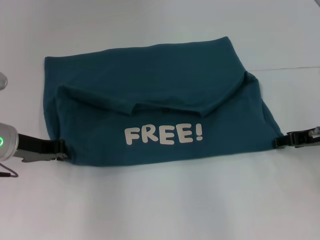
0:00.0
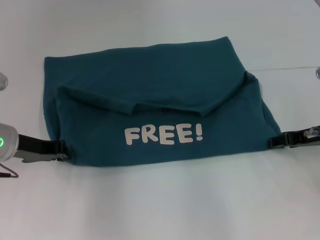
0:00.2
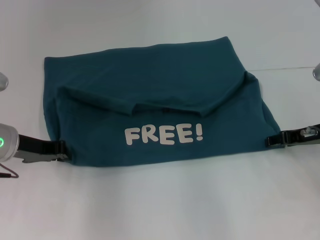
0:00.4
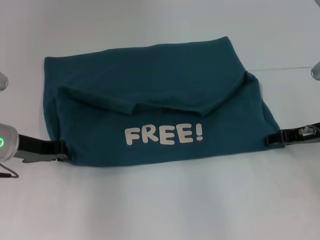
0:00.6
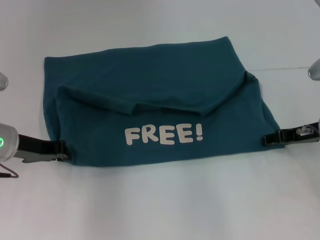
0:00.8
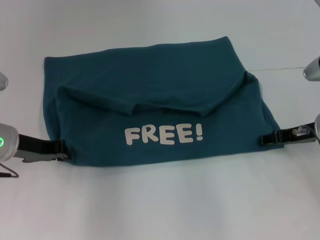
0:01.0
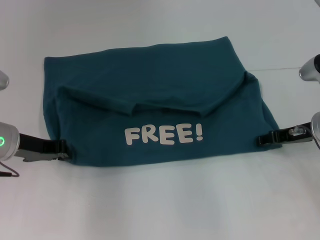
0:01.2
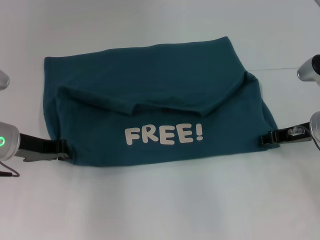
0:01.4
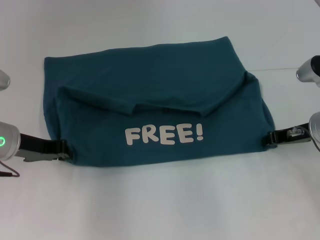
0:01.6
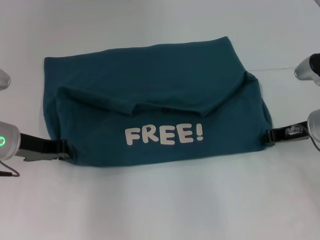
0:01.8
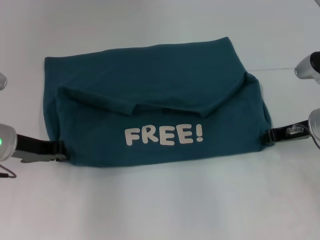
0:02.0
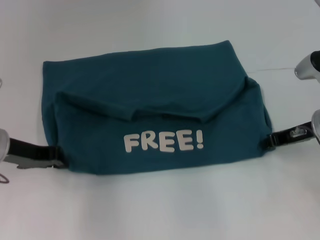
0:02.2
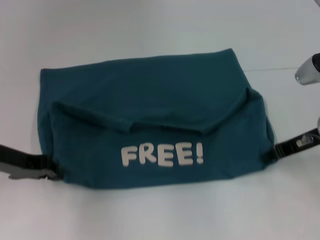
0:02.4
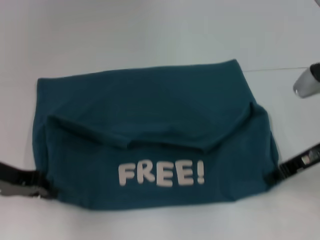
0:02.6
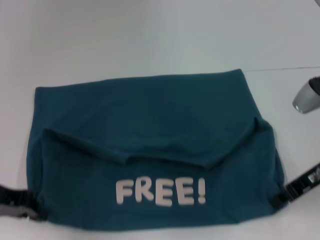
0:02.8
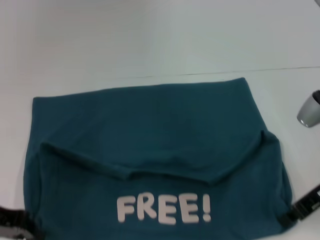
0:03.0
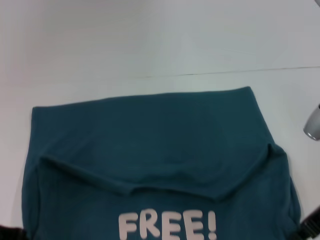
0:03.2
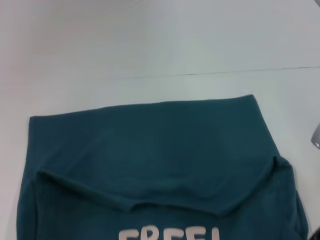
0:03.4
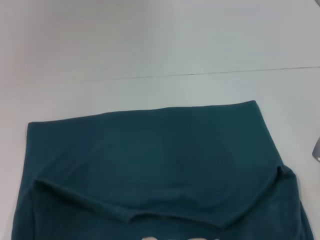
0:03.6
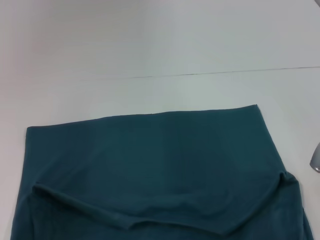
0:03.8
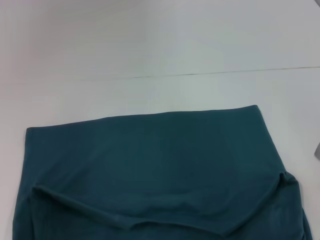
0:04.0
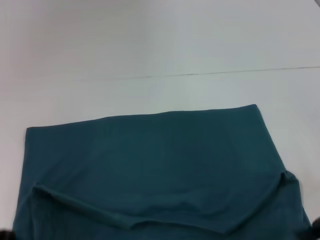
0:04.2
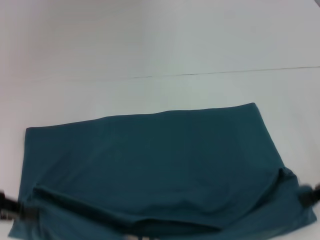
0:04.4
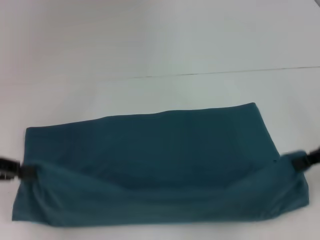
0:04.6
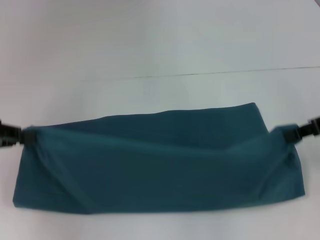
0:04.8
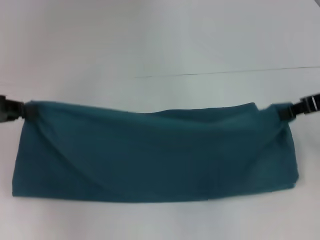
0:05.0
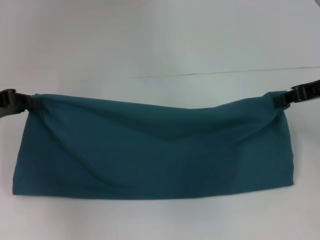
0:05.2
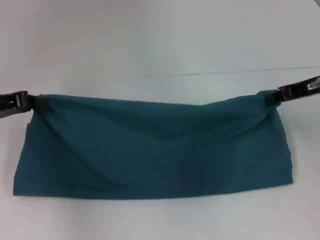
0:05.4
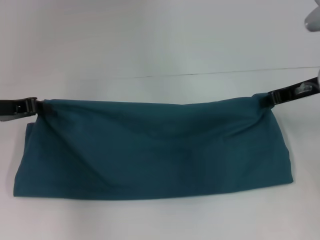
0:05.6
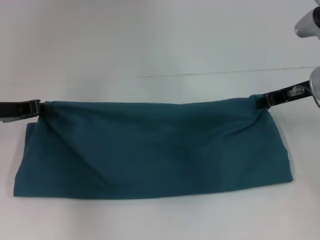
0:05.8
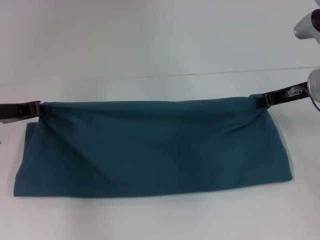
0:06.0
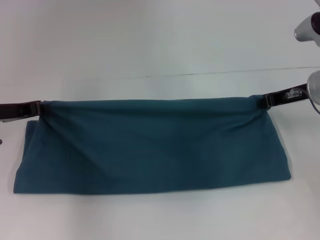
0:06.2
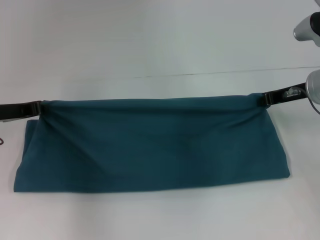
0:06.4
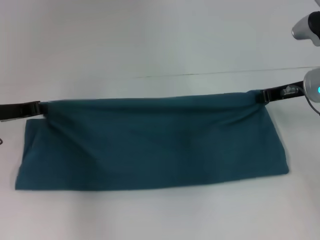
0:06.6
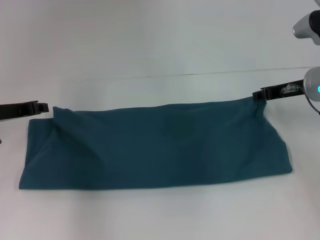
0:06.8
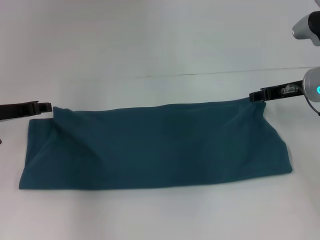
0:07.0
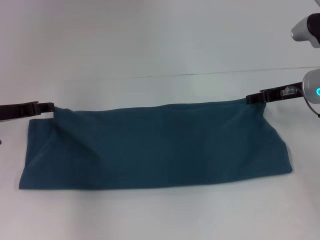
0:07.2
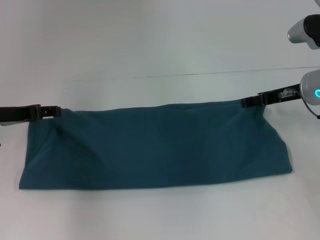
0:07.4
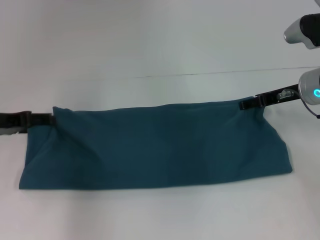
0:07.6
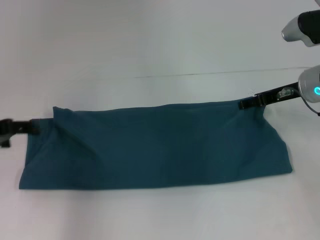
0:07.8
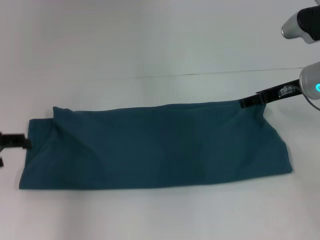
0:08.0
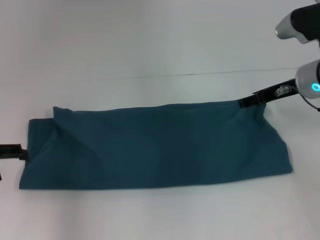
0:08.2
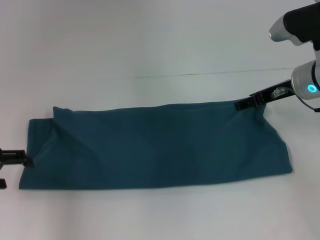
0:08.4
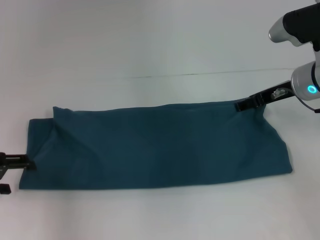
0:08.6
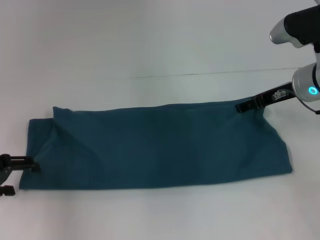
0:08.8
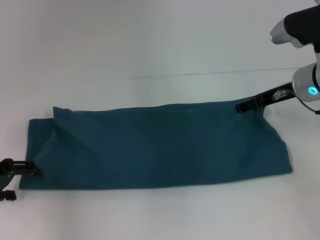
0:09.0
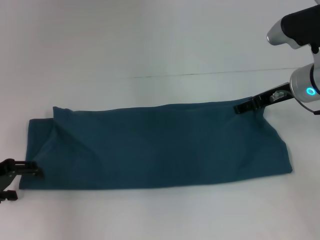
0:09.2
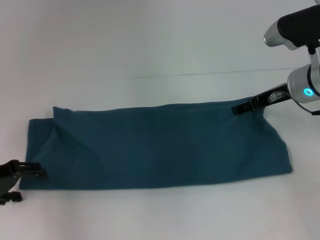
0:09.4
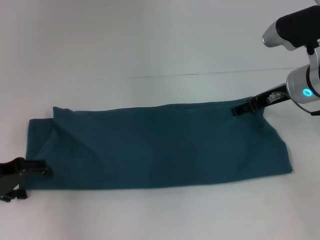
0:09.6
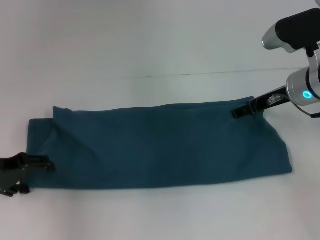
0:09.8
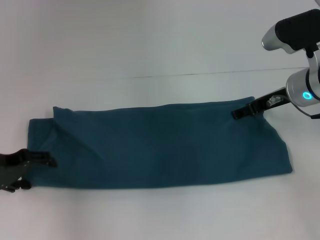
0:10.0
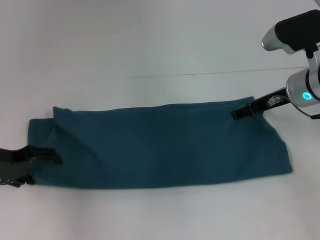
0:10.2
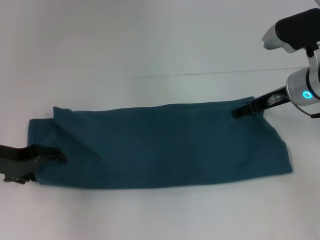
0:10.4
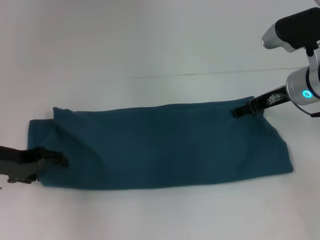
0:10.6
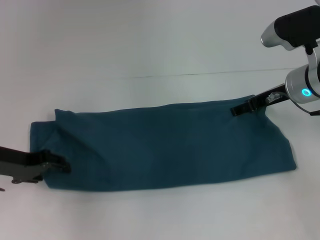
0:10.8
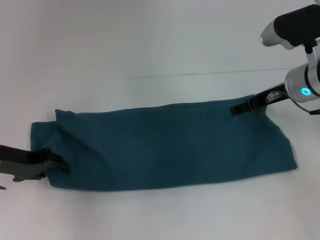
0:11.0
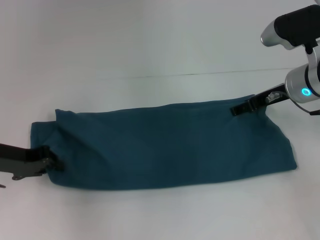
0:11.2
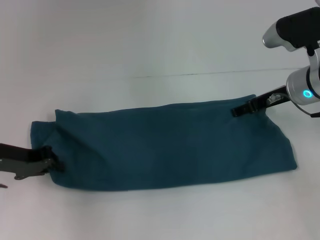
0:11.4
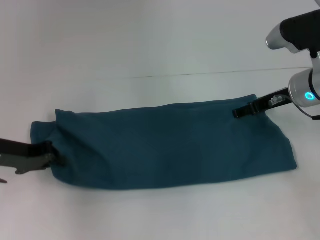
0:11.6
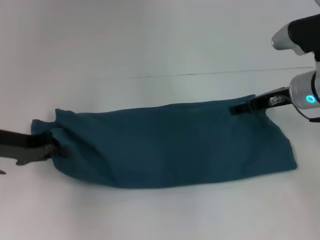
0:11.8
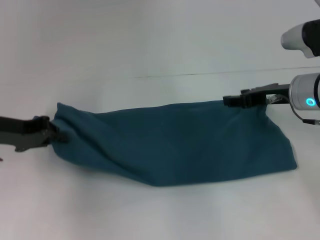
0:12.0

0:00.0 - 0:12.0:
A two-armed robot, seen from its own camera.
Step, 0:00.0 - 0:04.0: Pull the clothes with your left hand.
Step, 0:00.0 - 0:04.0: Pull the clothes with your right hand.
Step, 0:04.2 - 0:07.6: Fold the clothes to the left.
Step, 0:04.2 - 0:07.6: Fold the clothes to the right.
0:00.0 - 0:01.6: The right gripper closes.
0:01.6 - 0:03.0: The right gripper heads backward, covering some 5 cm, and closes, while the left gripper is displaced backward and to the left by some 10 cm.
0:03.0 - 0:04.4: The right gripper heads to the right, covering about 5 cm.
0:04.4 - 0:06.0: Both grippers travel together forward, roughly 10 cm.
0:06.0 - 0:07.6: The left gripper opens its fingers; the right gripper opens.
0:07.6 - 0:09.0: The left gripper moves backward, some 5 cm.
0:09.0 - 0:10.4: The grippers move only a little.
0:10.4 - 0:12.0: The left gripper closes its fingers.

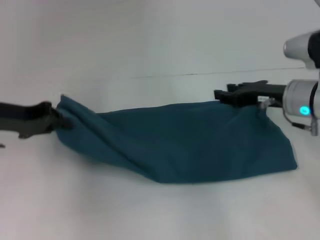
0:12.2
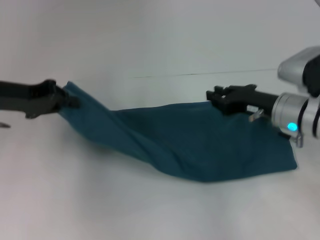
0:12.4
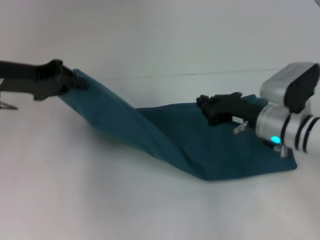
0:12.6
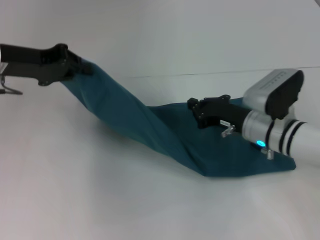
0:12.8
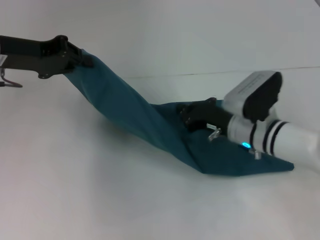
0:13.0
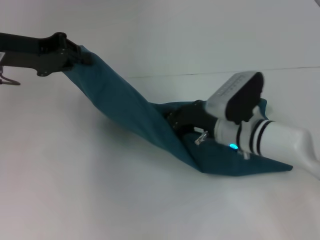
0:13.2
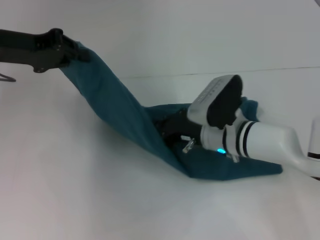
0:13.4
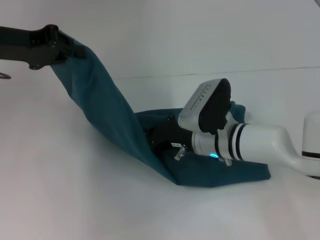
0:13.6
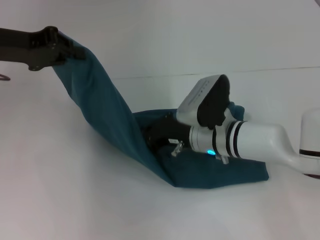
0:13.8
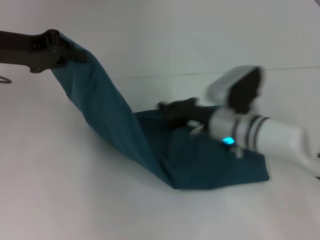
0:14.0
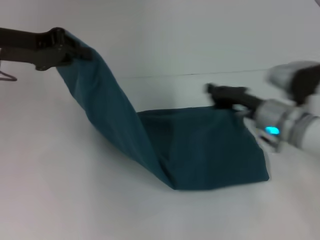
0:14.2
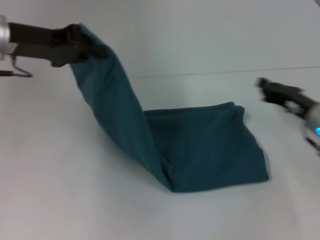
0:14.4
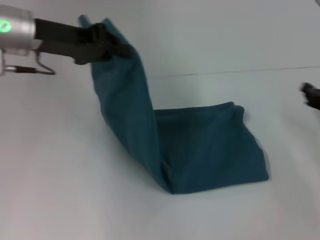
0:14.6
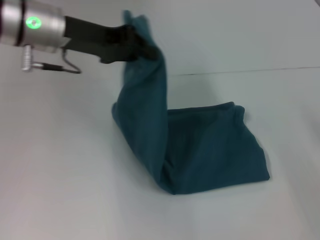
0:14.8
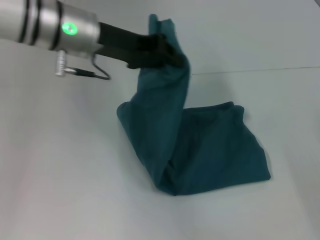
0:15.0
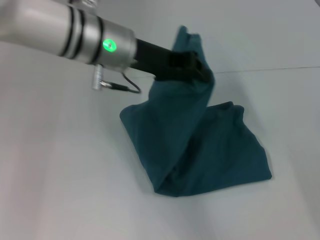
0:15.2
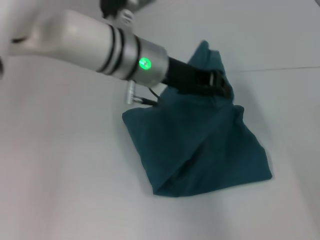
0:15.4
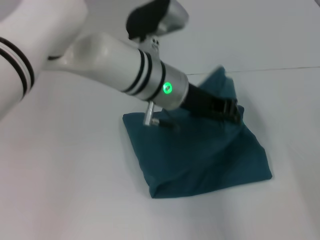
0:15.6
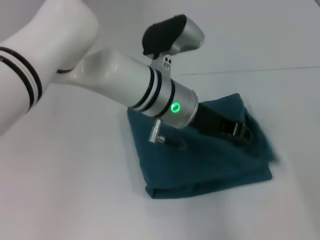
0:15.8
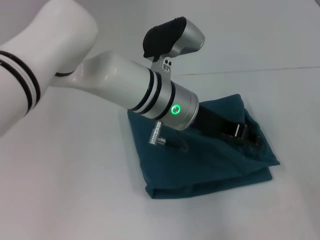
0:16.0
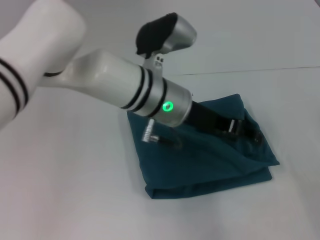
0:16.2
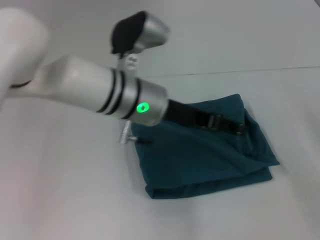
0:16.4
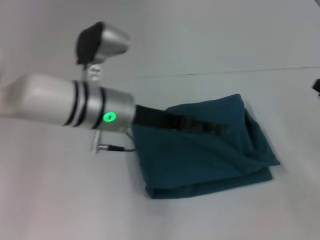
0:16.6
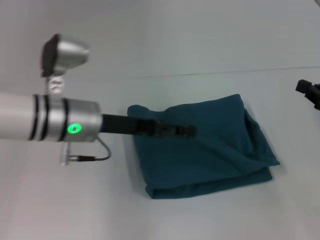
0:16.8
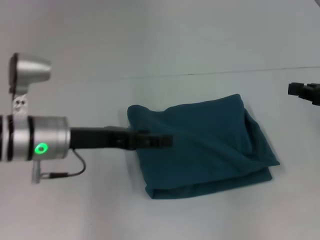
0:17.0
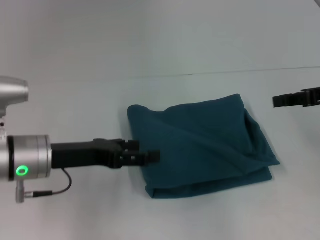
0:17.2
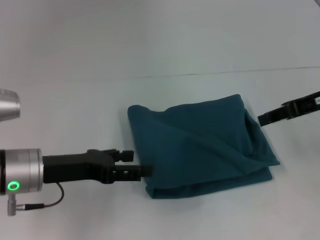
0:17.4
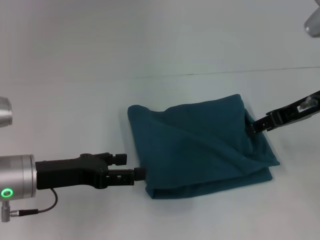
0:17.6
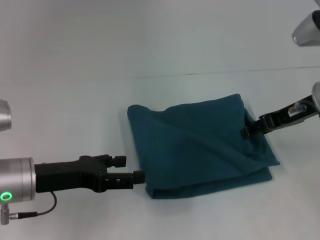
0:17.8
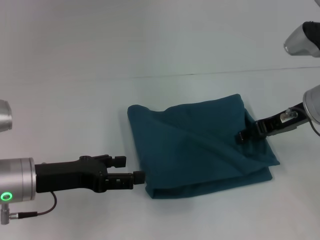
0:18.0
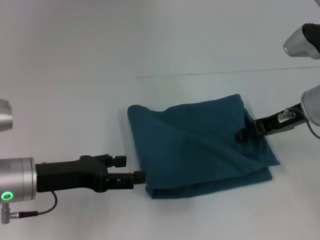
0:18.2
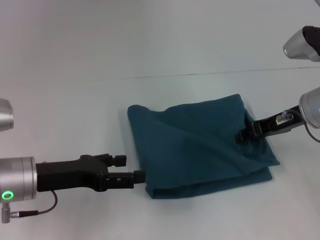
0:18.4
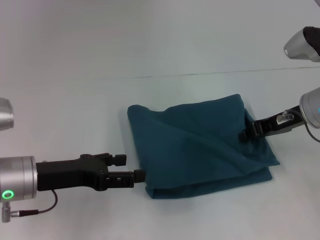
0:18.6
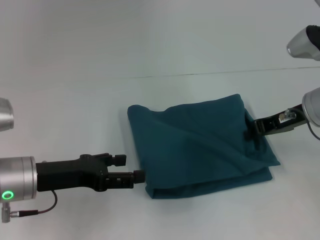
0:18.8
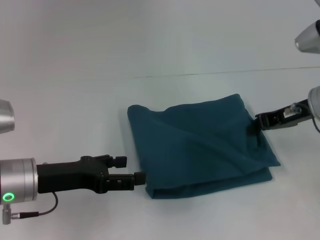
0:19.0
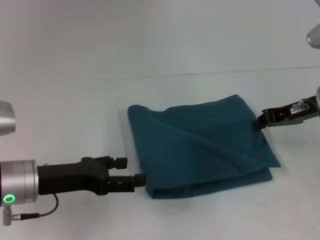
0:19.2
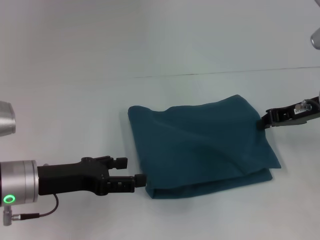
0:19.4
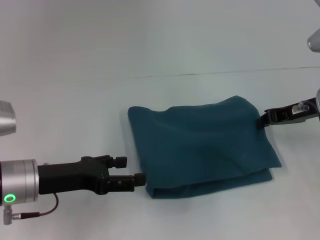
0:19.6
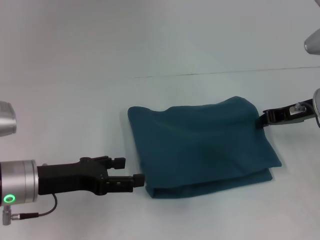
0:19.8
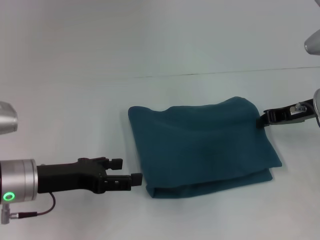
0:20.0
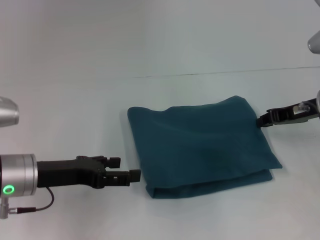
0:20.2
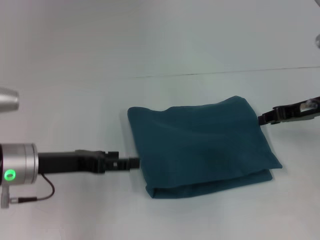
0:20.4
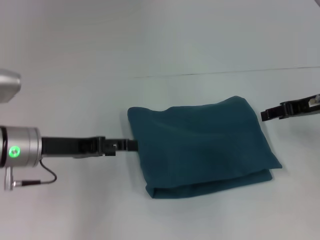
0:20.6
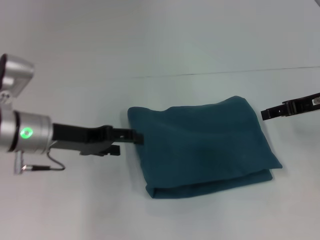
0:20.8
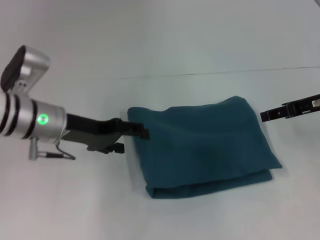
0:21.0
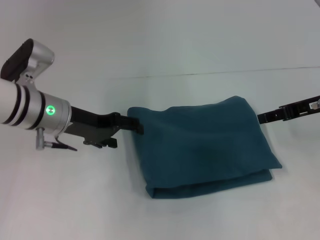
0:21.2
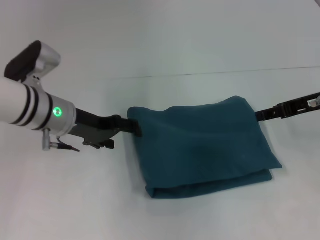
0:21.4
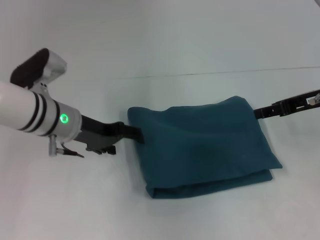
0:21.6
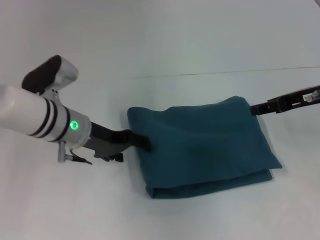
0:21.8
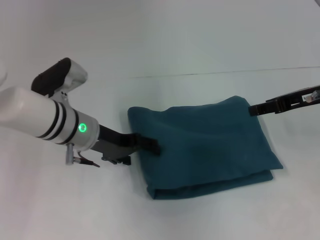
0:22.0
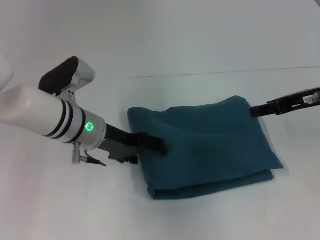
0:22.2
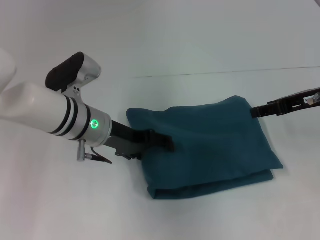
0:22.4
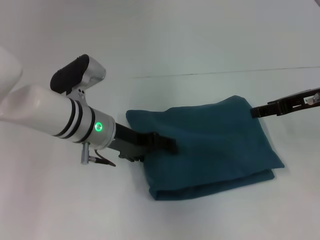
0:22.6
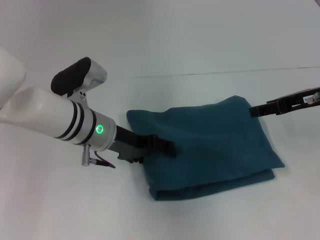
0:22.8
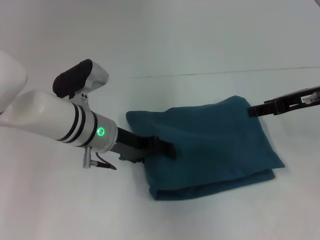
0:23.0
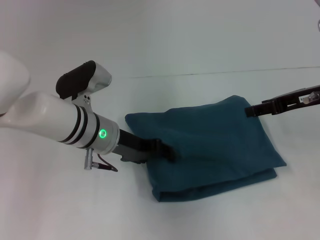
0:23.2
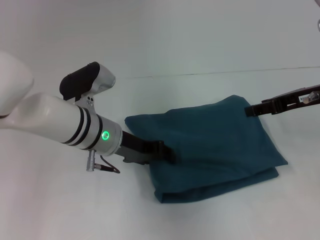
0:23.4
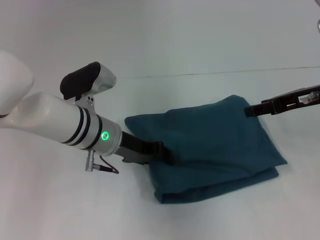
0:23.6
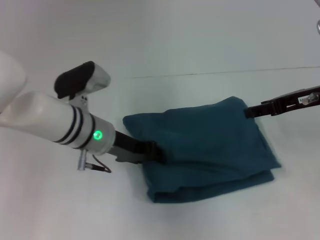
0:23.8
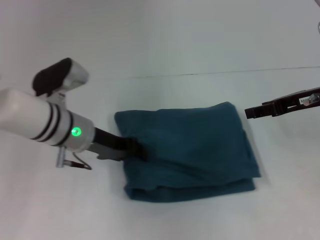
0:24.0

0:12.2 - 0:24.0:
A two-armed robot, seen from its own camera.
Step, 0:13.8 - 0:16.2: Fold the clothes to the left.
0:12.2 - 0:13.6: The right gripper goes roughly 15 cm to the left and downward, and closes up; the left gripper heads upward, covering some 10 cm.
0:13.6 - 0:15.2: The left gripper is displaced to the right by approximately 20 cm, while the right gripper travels to the right by about 30 cm.
0:15.2 - 0:16.6: The left gripper is displaced downward by some 5 cm, goes to the right and returns, about 10 cm each way, and opens its fingers.
0:16.6 - 0:18.2: The left gripper goes some 15 cm to the left, backward and downward, while the right gripper shifts roughly 15 cm to the left, forward and upward, and opens up.
0:18.2 - 0:19.6: The right gripper closes up.
0:19.6 - 0:21.0: The right gripper opens its fingers; the left gripper heads forward, covering about 10 cm.
0:21.0 - 0:22.6: The left gripper moves to the right, some 5 cm.
0:22.6 - 0:24.0: The left gripper closes its fingers.
